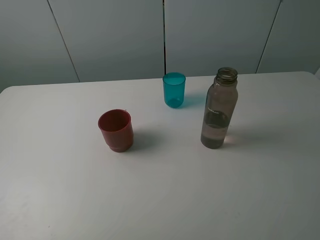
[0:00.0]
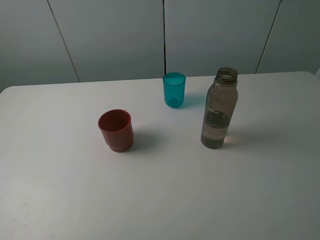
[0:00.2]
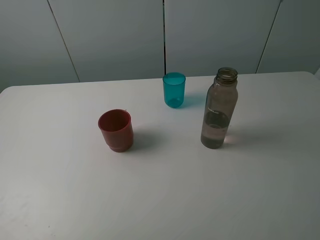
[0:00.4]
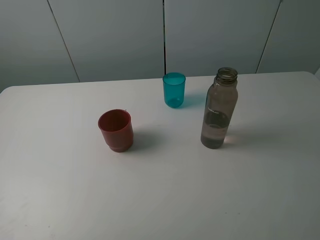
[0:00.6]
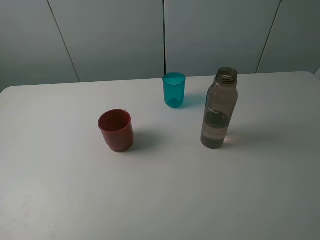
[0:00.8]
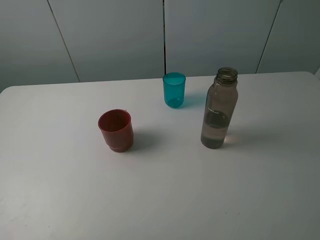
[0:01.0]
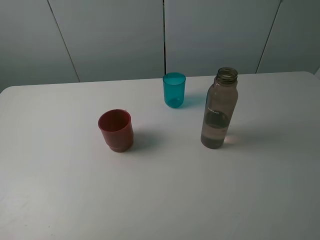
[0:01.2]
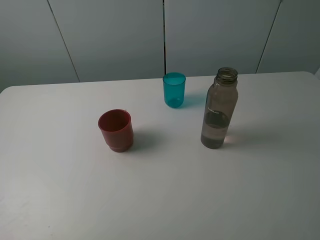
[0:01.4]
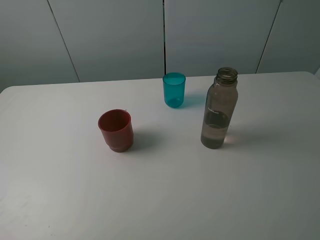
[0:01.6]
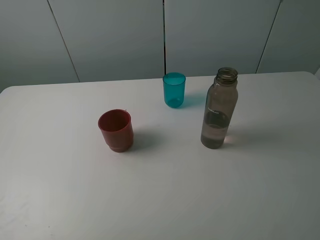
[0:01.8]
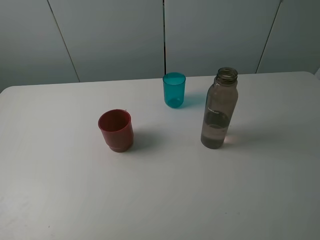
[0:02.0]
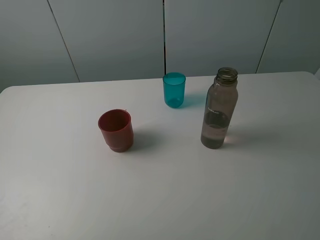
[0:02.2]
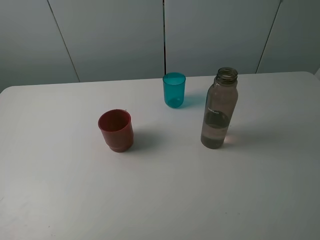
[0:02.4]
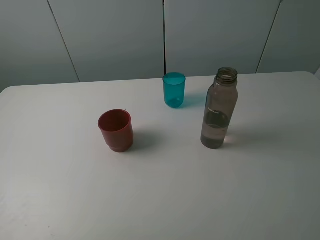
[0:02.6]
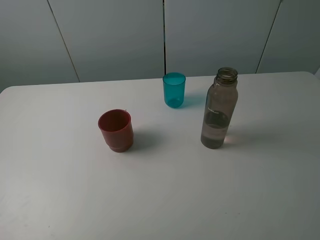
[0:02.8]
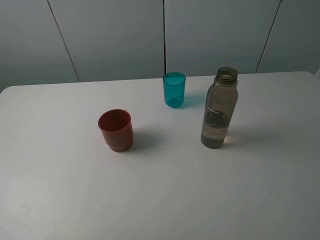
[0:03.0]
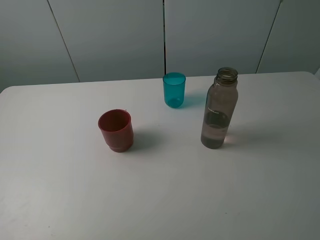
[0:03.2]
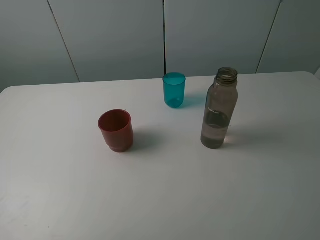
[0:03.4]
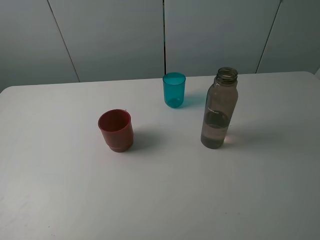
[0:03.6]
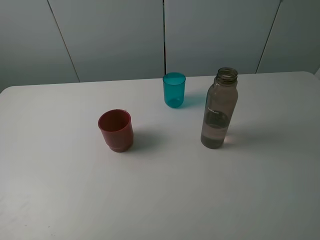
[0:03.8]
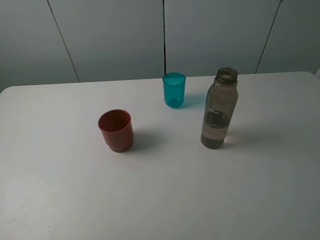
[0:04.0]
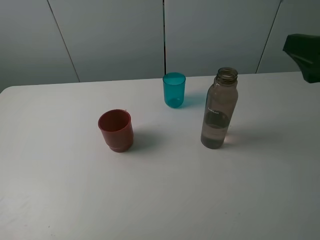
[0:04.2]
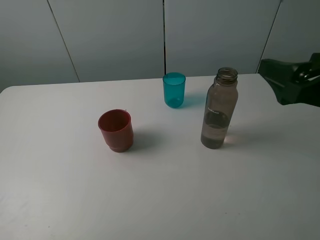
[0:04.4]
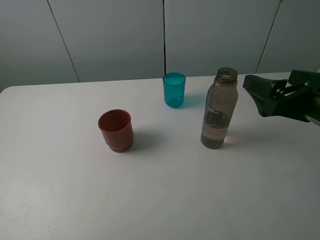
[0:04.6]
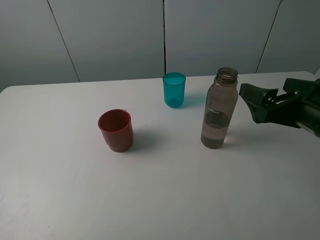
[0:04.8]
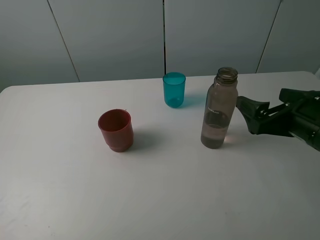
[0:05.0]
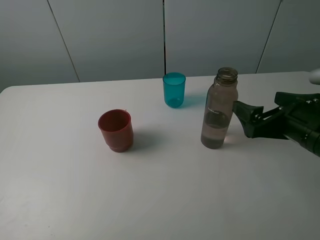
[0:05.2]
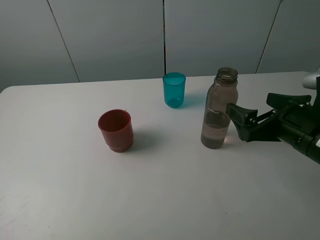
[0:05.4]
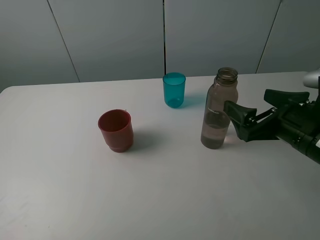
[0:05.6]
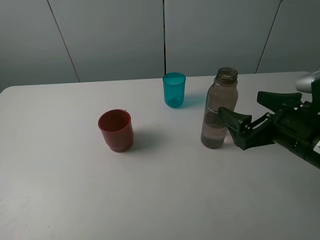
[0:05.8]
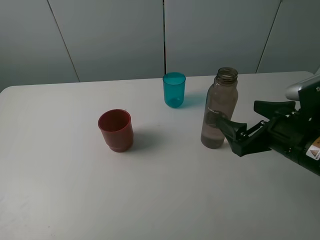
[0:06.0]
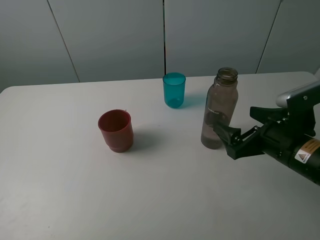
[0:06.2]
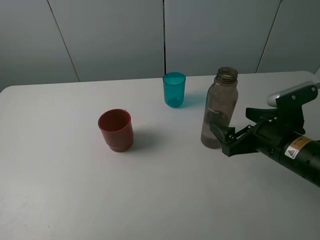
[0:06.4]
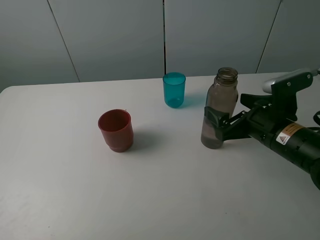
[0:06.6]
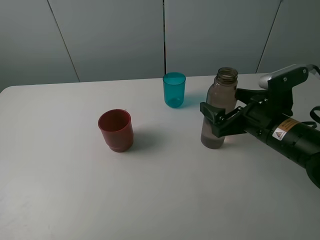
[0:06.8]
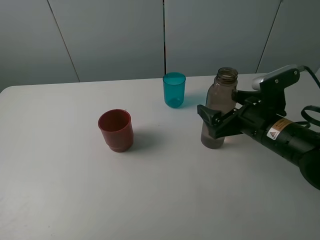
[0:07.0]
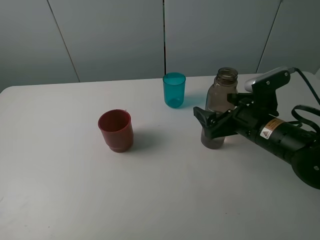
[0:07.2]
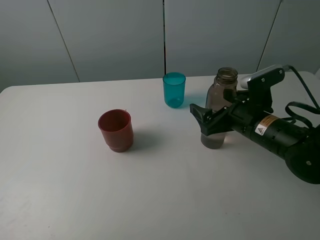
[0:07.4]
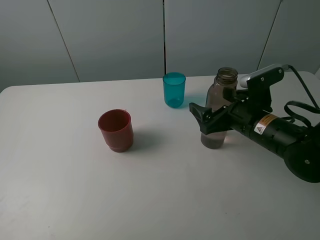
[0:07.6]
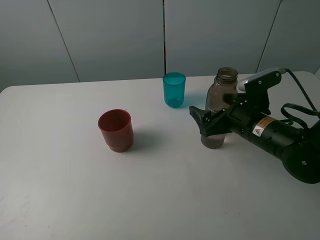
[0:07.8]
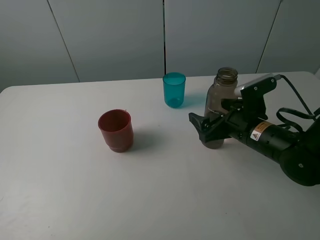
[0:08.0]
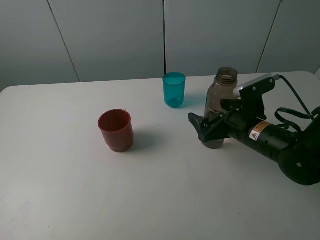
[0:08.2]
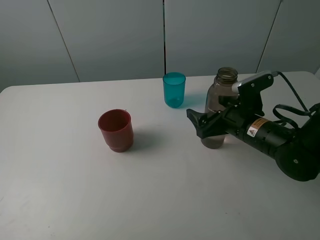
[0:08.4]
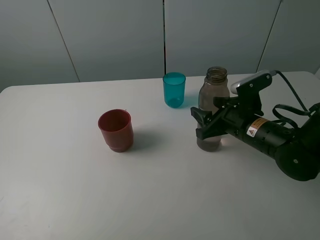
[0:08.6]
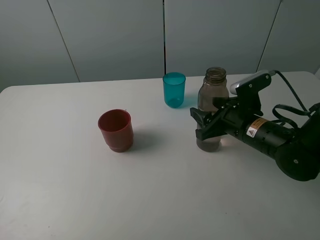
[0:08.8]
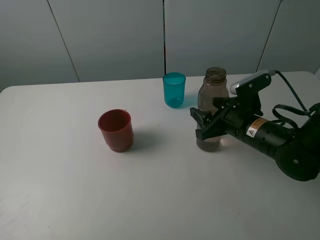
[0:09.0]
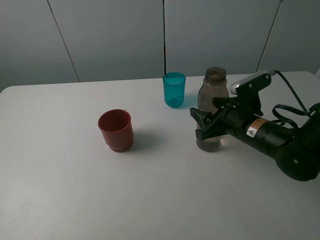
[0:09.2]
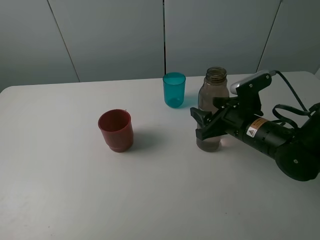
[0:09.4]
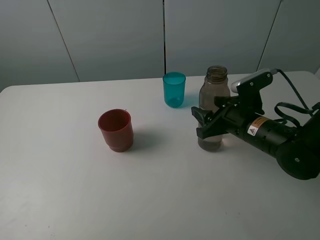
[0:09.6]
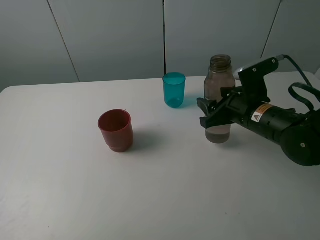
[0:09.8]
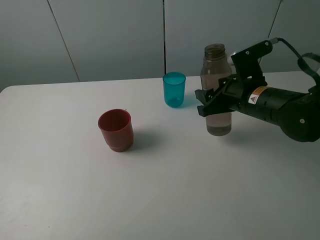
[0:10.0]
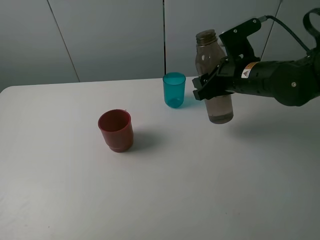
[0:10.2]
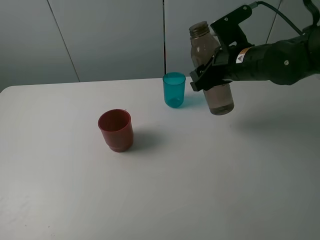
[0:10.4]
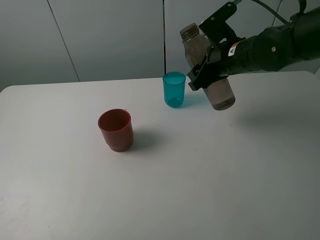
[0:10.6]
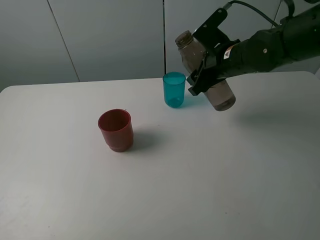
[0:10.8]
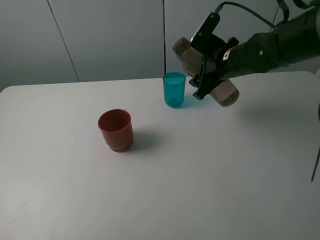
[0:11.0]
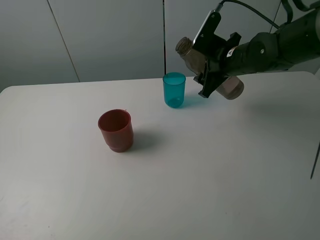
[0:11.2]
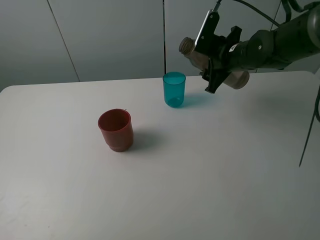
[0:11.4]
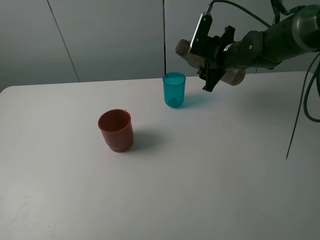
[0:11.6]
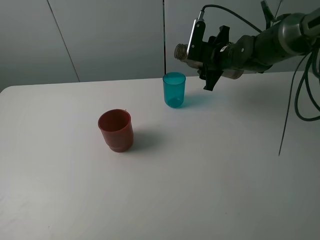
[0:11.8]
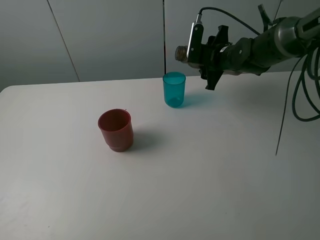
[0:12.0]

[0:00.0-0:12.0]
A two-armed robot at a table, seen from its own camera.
Task of the whole recording: pick up the bottle and pour water into the cup, then pick up the cup containing water and pour it into another cup.
Step, 0:00.0 to 0:08.4: Grasp the brown bottle with the right gripper.
0:00.0 to 0:01.6: Both grippers stay put.
0:03.0 to 0:04.4: The right gripper heads forward and downward, covering roughly 15 cm.
0:04.4 to 0:06.0: The right gripper goes some 10 cm downward.
0:06.0 to 0:07.6: The right gripper is displaced forward by approximately 5 cm.
0:07.6 to 0:09.0: The right gripper closes its fingers.
0:09.0 to 0:10.4: The right gripper goes roughly 15 cm upward and forward.
0:10.4 to 0:12.0: The right gripper travels forward and downward by some 10 cm.

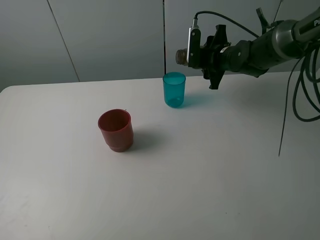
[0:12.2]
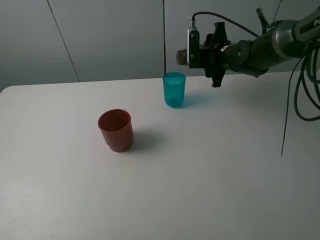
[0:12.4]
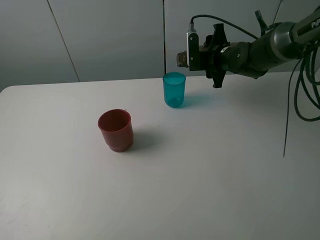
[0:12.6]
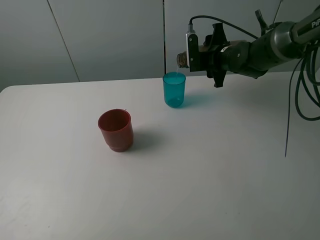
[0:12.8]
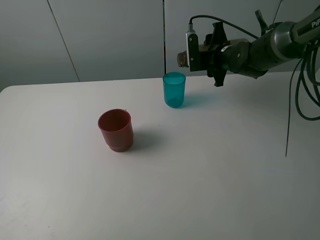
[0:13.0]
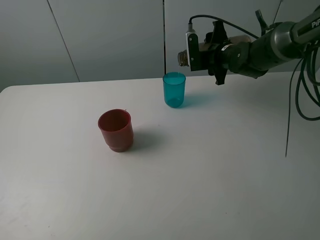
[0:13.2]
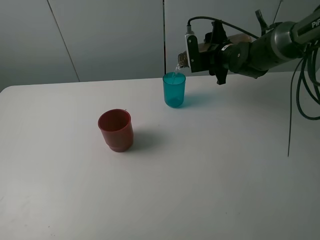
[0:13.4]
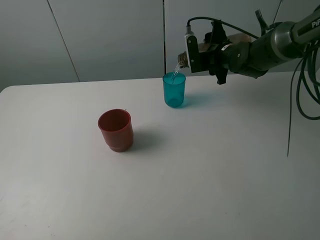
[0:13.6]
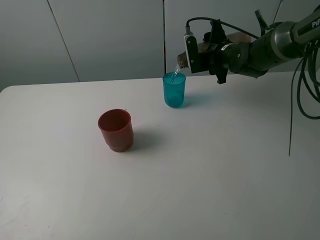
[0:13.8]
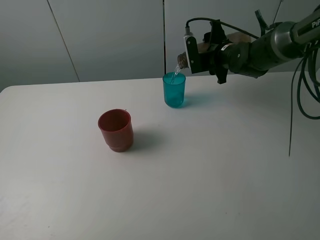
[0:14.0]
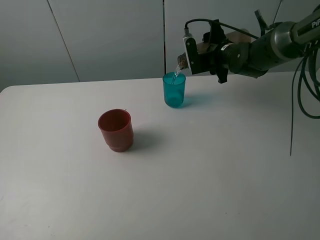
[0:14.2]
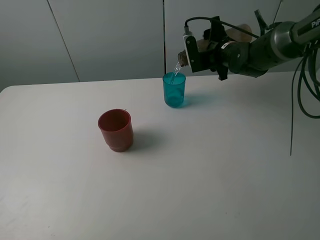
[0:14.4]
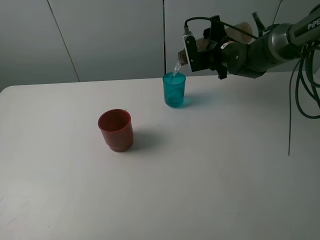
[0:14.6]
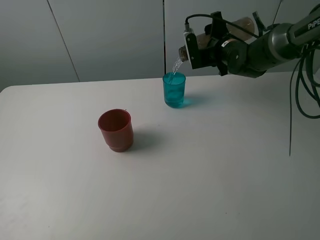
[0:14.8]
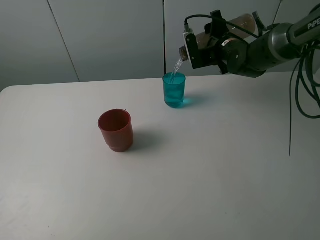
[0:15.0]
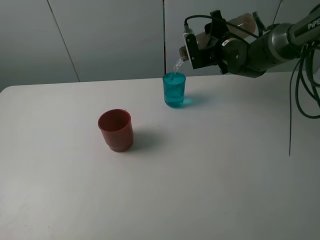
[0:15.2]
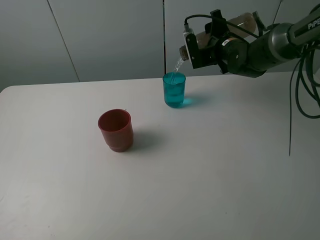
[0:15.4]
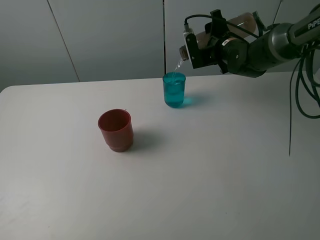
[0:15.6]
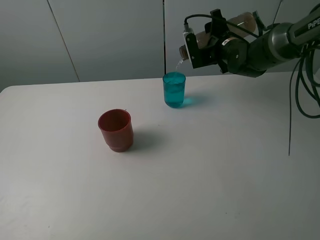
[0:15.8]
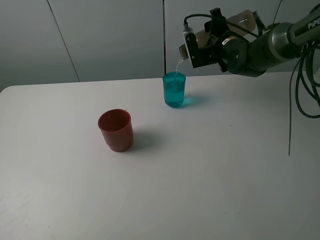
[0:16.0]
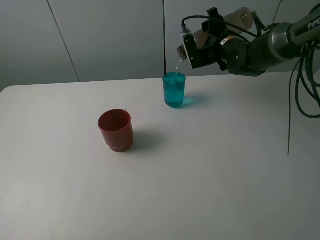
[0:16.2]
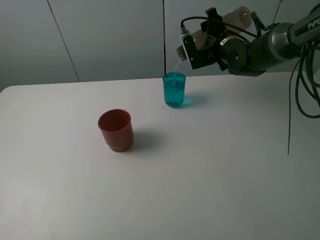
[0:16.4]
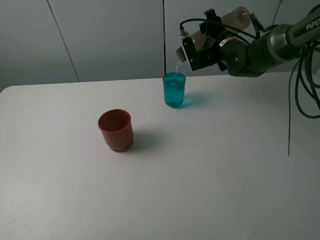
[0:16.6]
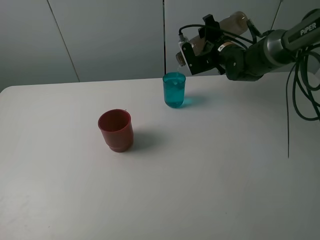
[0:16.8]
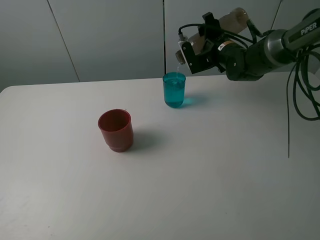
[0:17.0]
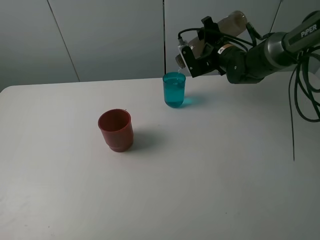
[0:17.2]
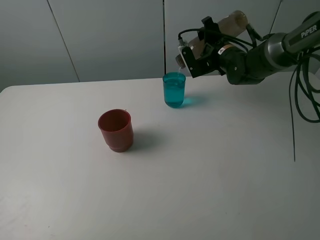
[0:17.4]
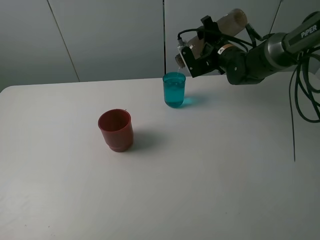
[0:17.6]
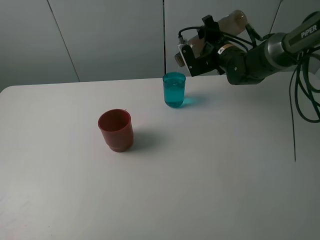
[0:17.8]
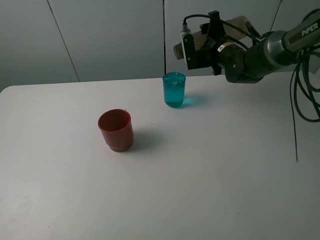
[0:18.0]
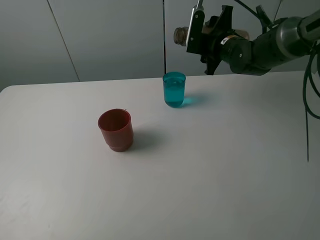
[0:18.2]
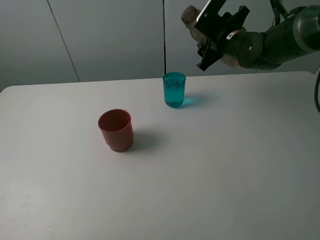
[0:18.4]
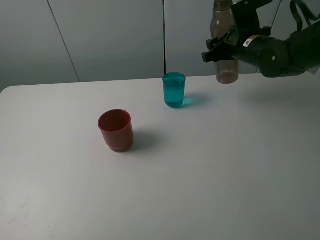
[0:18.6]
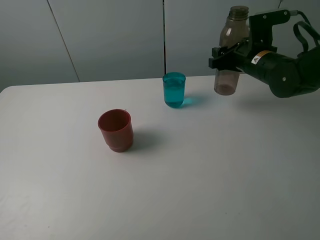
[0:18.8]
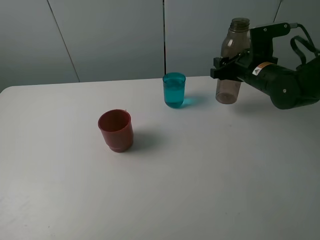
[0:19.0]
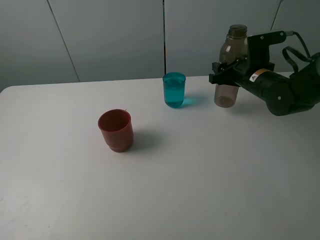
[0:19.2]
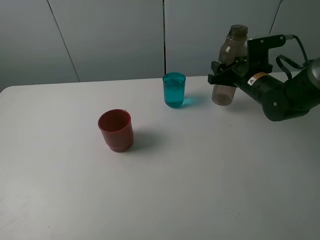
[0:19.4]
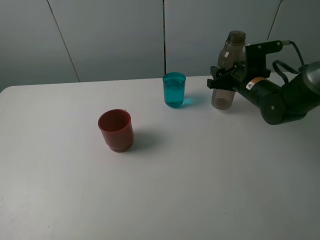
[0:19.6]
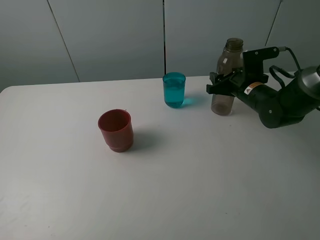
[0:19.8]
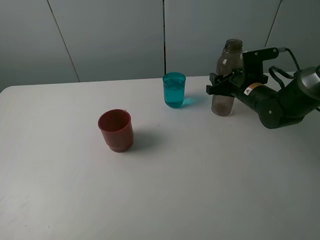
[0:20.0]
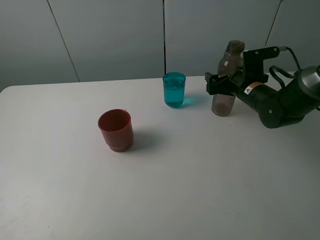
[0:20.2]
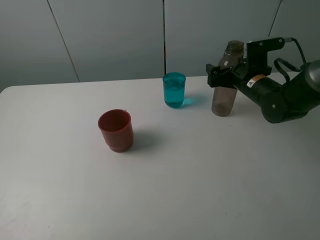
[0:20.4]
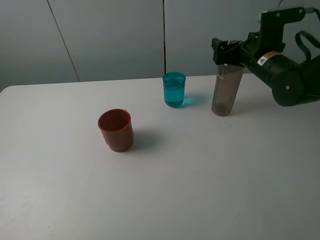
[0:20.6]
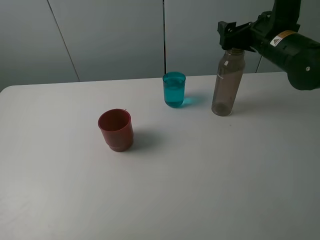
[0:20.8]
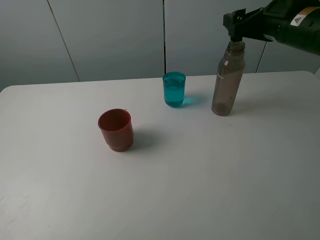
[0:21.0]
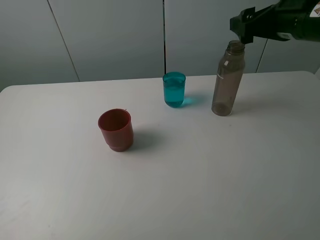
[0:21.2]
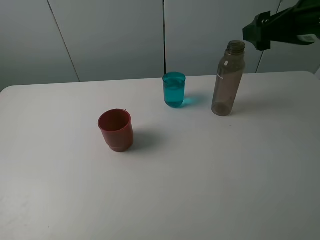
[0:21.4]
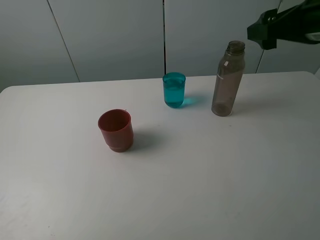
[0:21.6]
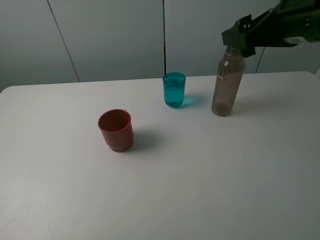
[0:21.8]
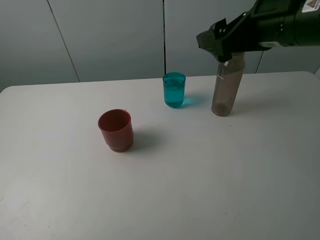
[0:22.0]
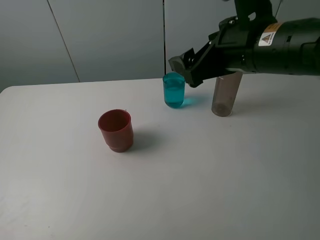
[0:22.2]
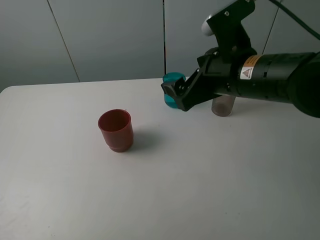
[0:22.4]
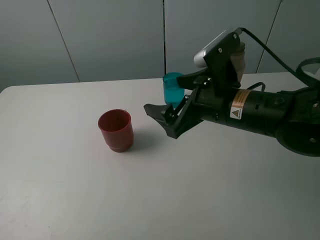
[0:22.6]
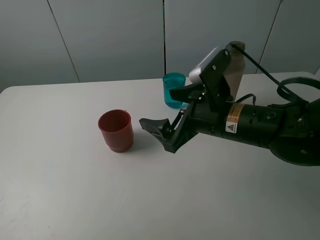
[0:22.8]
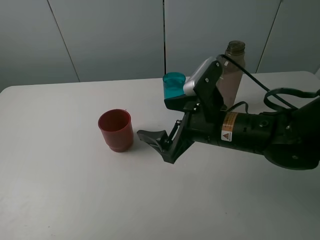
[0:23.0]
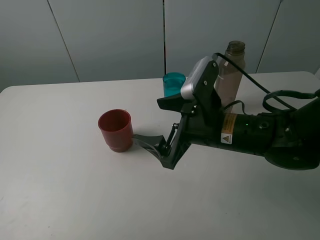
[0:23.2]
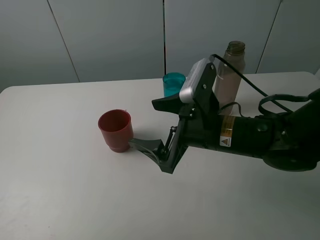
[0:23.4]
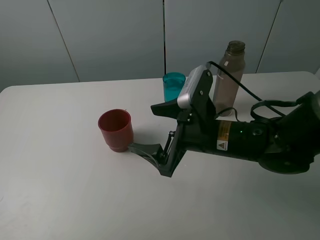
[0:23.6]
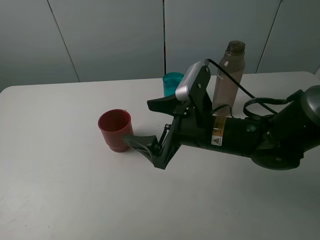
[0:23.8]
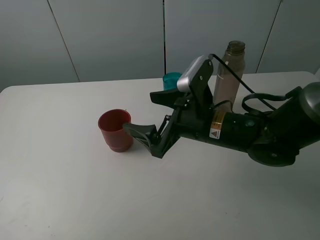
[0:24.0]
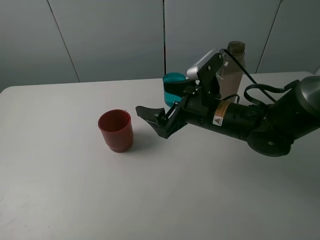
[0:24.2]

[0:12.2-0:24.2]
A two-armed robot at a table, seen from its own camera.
Task of the whole recording: pick up the bottle and pour water into the cup, then pick up the cup containing water and pour it into another cup.
Step, 0:12.2 to 0:18.0: Pour water from brown bottle to blue cup with the right gripper.
Step, 0:18.2 to 0:20.4: Place the brown bottle with the right gripper.
0:12.2 to 0:13.8: The grippers make only small movements.
0:13.8 to 0:16.6: The grippers move only a little.
0:18.2 to 0:19.8: The right gripper shifts approximately 10 cm downward, backward and to the right.
0:19.8 to 0:21.2: The right gripper shifts roughly 20 cm upward, and opens.
0:21.2 to 0:22.6: The right gripper shifts about 15 cm to the left, downward and backward.
0:22.6 to 0:24.2: The right gripper ends up roughly 5 cm from where it was.
